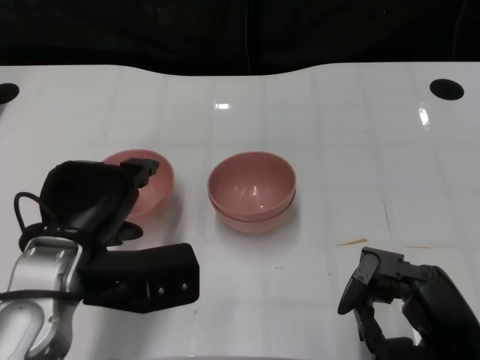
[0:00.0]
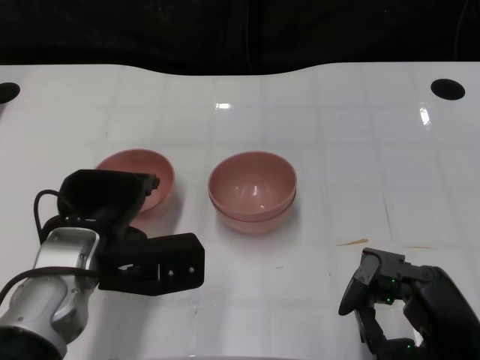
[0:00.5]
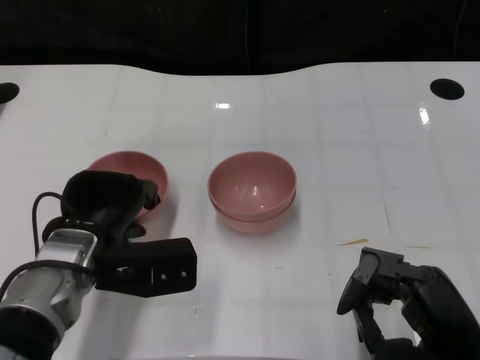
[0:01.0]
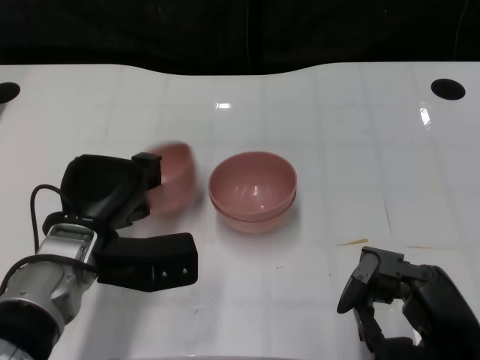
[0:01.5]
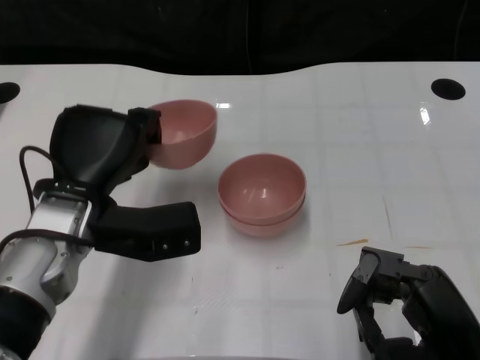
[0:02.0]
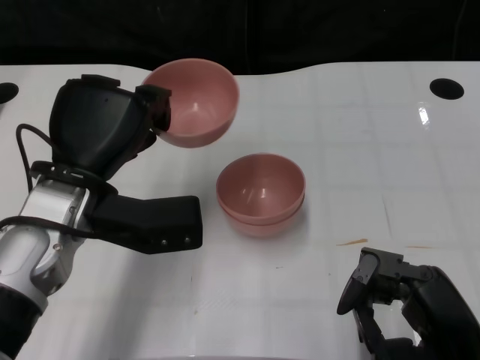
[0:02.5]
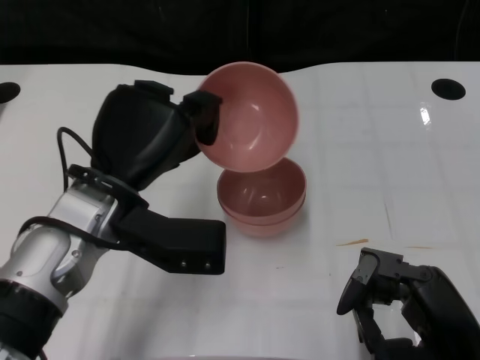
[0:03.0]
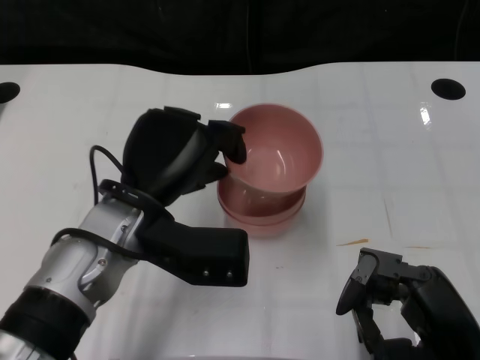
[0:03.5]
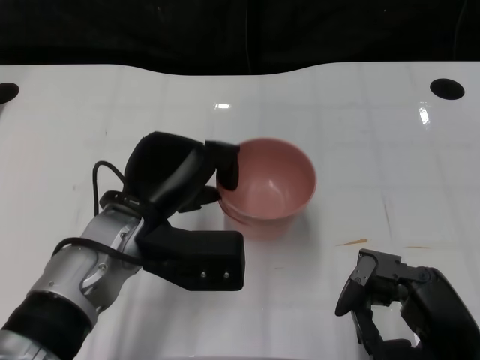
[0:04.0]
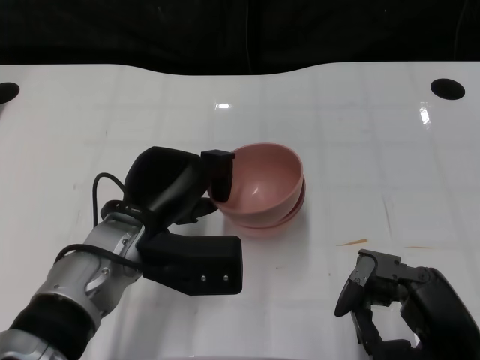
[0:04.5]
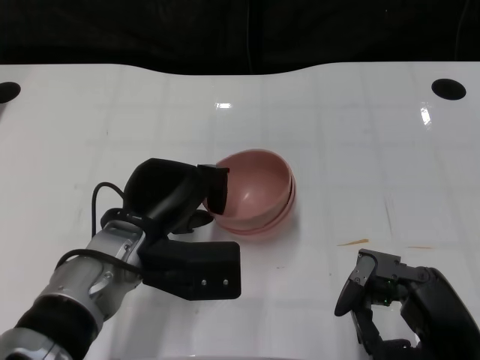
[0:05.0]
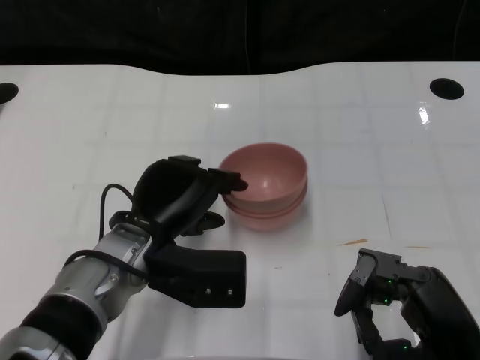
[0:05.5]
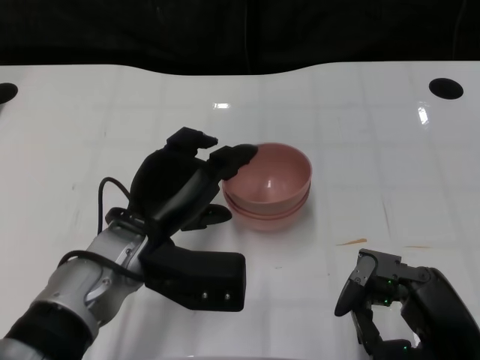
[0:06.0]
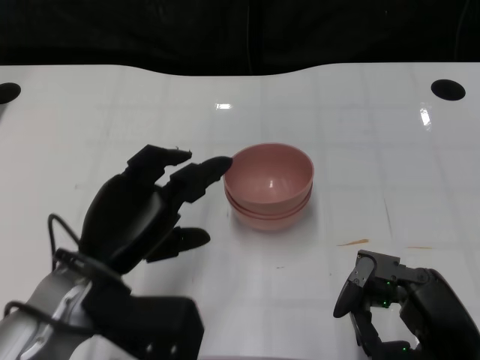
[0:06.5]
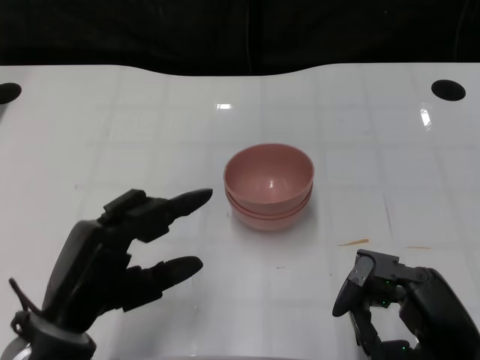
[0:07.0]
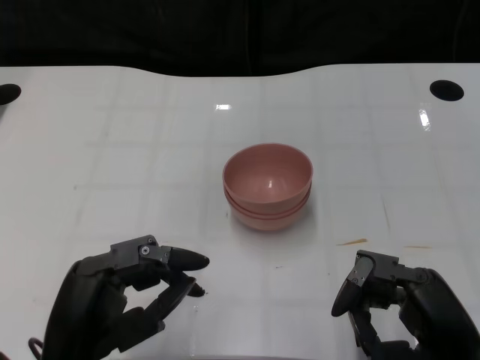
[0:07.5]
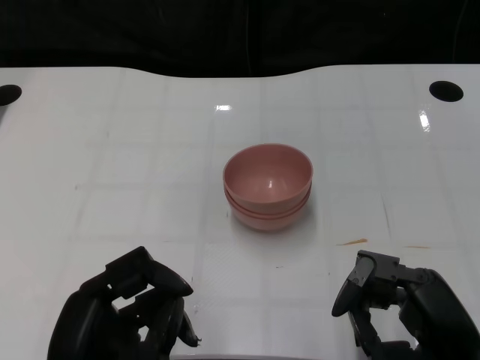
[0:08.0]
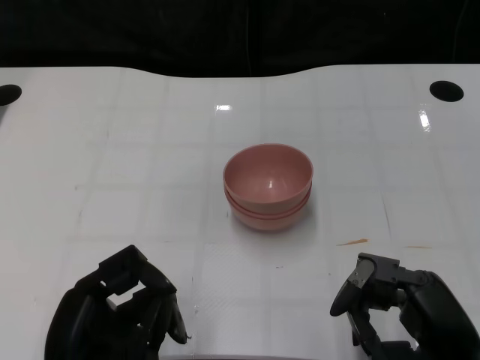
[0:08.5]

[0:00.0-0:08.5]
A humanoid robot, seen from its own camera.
Task of the whole recording: Pick up the bowl on one side of the table and place it on top of the middle bowl, then pick up the bowl on the other side of the table and place it on top of the middle bowls.
Step, 0:02.0 to 0:06.0: Place the bowl on the left onto the bowl in the middle with left gripper.
0:00.0 to 0:02.0: The left hand goes approximately 5 cm forward.
0:04.0 to 0:06.5: The left hand moves about 5 cm.
0:06.5 to 0:08.5: The left hand shifts roughly 10 cm backward.

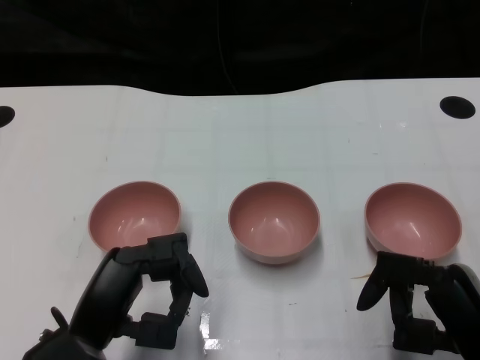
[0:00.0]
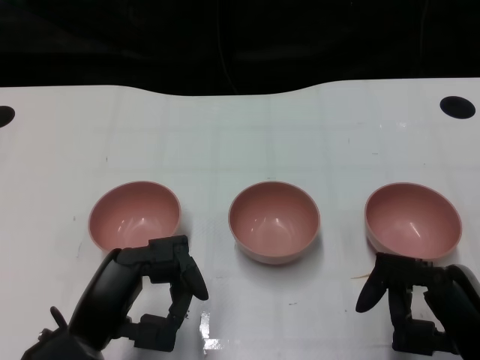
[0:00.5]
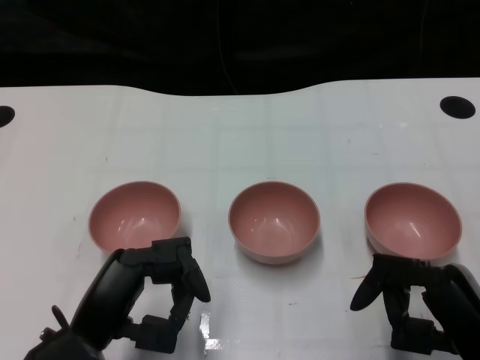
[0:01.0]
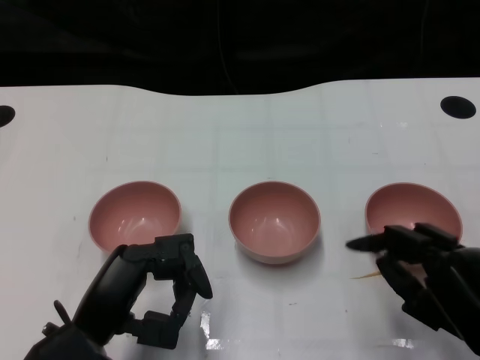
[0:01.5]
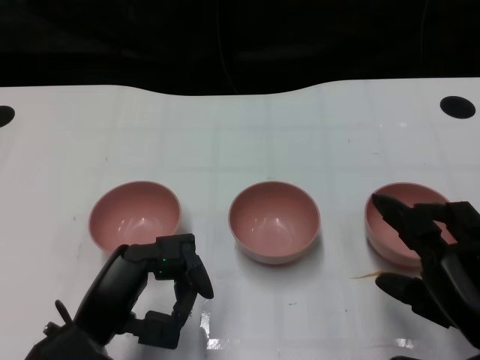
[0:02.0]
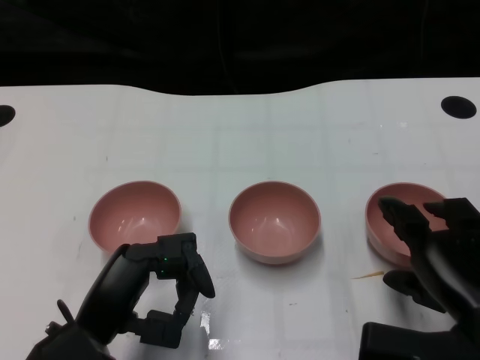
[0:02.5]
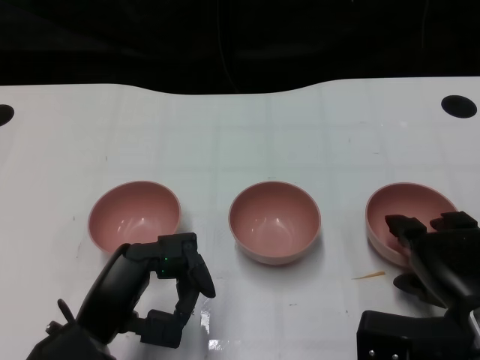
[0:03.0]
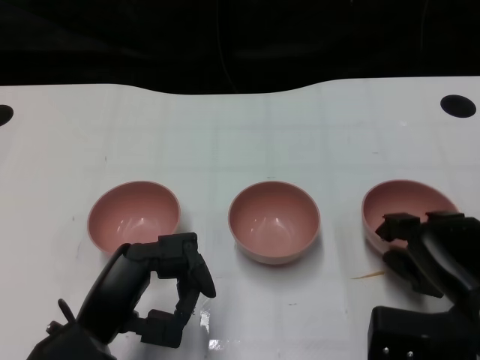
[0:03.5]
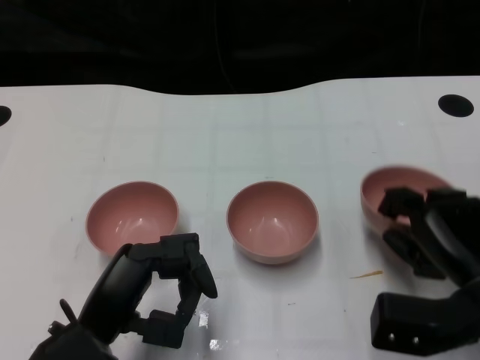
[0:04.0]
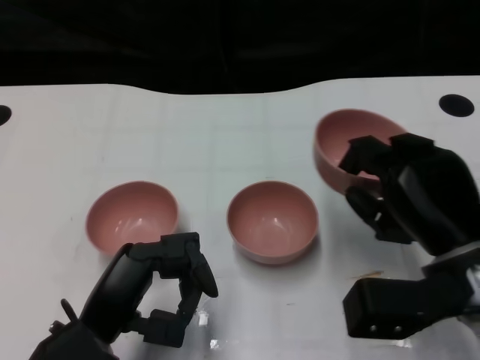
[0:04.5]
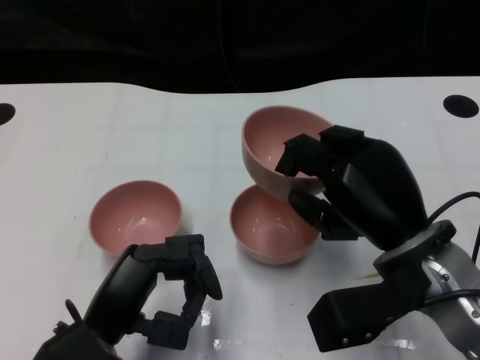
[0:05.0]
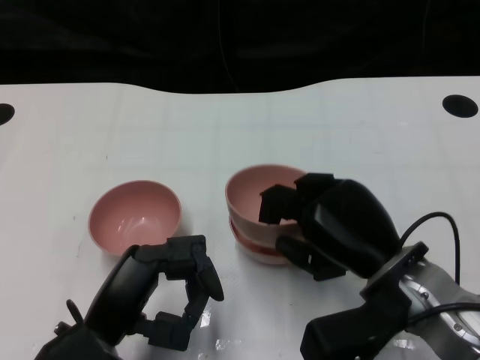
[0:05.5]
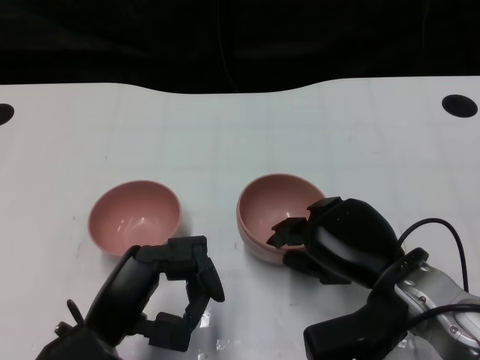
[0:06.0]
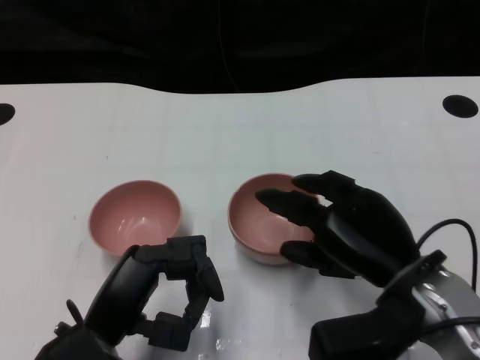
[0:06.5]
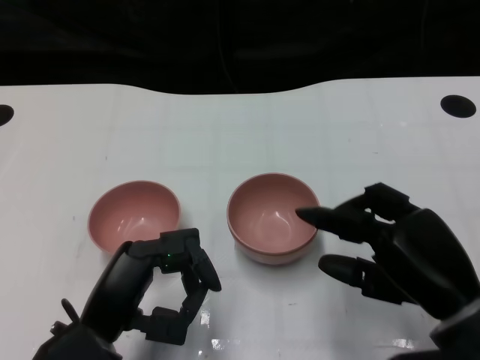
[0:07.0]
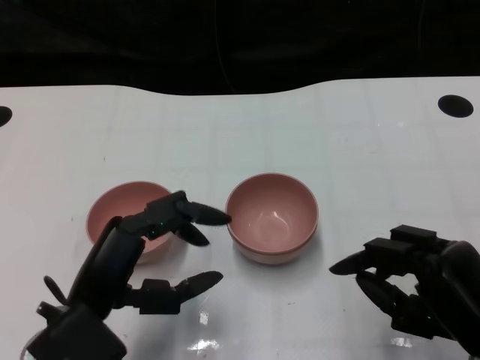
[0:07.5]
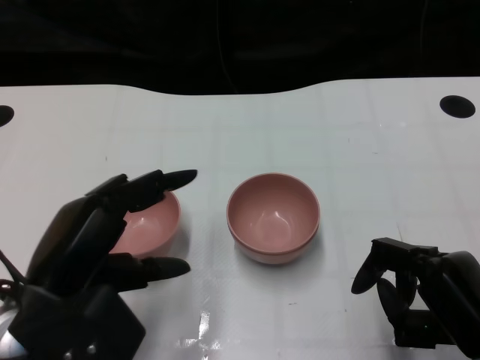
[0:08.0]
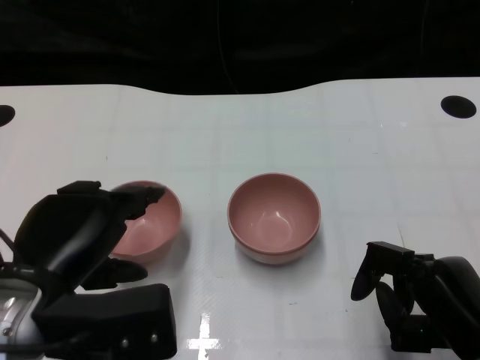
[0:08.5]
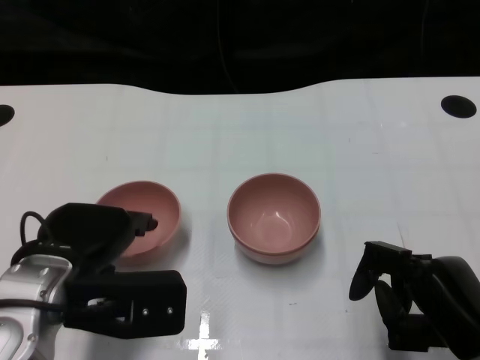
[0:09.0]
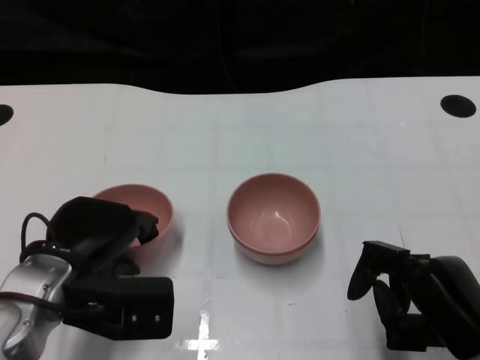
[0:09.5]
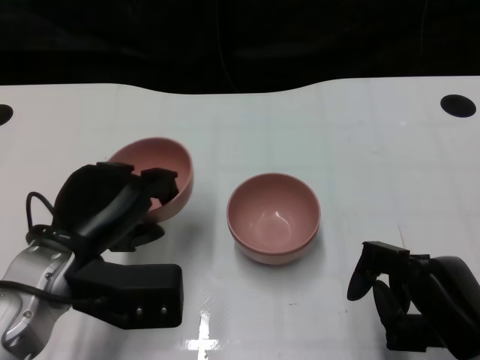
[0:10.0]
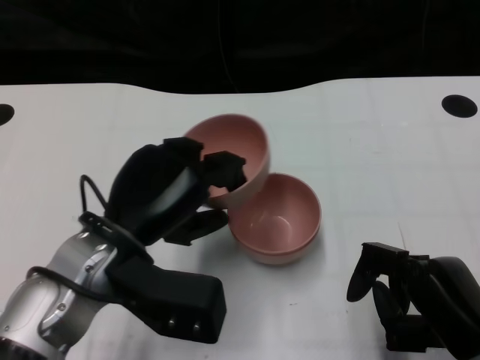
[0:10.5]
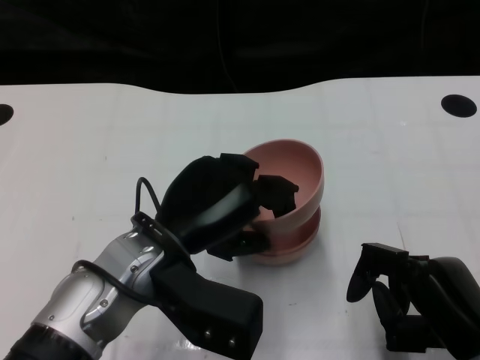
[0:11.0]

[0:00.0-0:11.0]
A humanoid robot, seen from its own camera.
Task of the whole recording: Pick up the bowl on one side of the table and place it on top of the middle bowl, then pick up the bowl on the other side of the table and place it on top of the middle bowls.
Step, 0:01.0 to 0:04.0: Grasp the bowl on the right with the right gripper.
Step, 0:04.5 to 0:06.5: Place the bowl on the right onto the bowl in the middle with right gripper.
Step, 0:07.5 to 0:09.5: Grasp the bowl on the left with the left gripper.
0:02.0 to 0:03.5: The right hand goes roughly 5 cm forward.
0:03.5 to 0:05.5: The right hand shifts roughly 10 cm to the left.
0:05.5 to 0:07.5: The right hand heads to the right and backward, covering roughly 10 cm.
0:07.5 to 0:09.0: The left hand ends up some 5 cm from where it was.
0:09.0 to 0:11.0: The left hand is displaced to the right by roughly 10 cm.

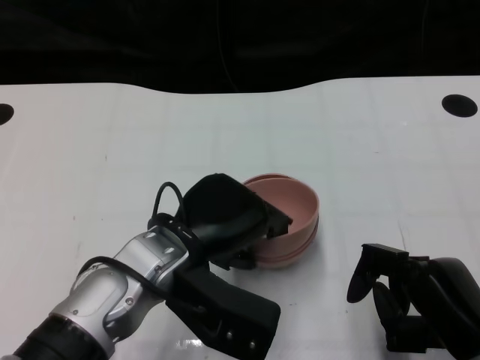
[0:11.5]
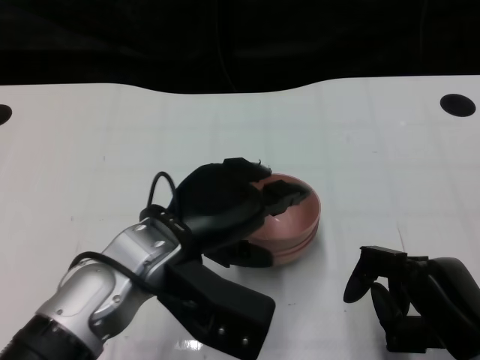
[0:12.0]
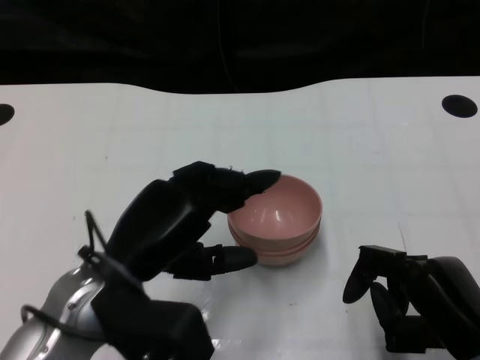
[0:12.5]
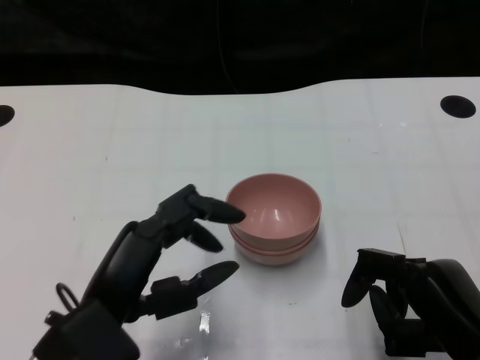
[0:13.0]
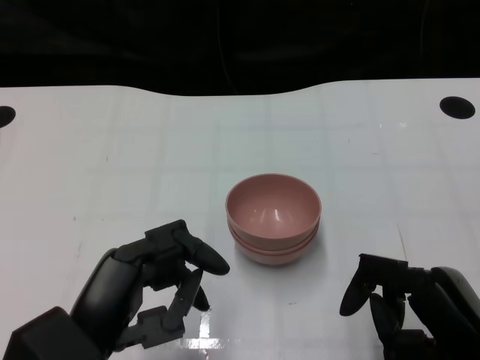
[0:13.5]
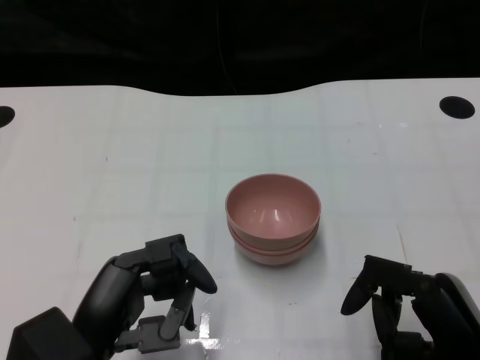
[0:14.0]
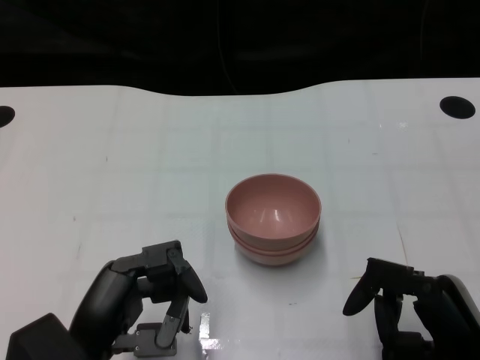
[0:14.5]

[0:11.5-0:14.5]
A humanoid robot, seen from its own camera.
Task of the whole recording: Pick up the bowl on one side of the table and place it on top of the middle bowl, then pick up the bowl on the other side of the table and place it on top of the middle bowls.
0:11.5 to 0:13.0: The left hand heads backward and to the left, covering some 10 cm.
0:13.0 to 0:14.5: The left hand changes place by about 5 cm.
